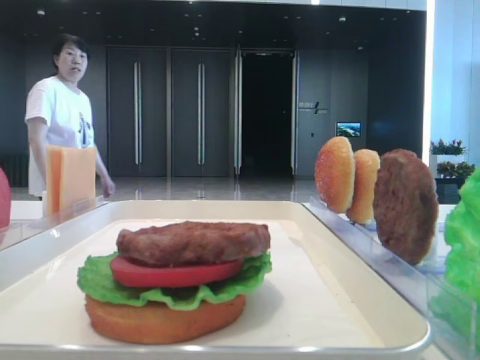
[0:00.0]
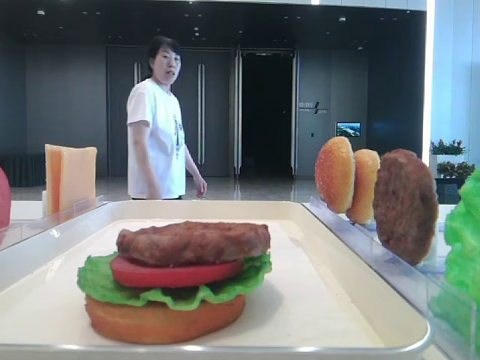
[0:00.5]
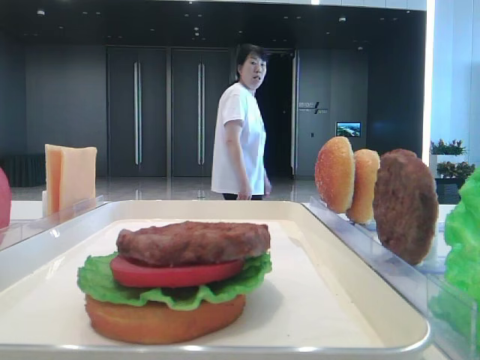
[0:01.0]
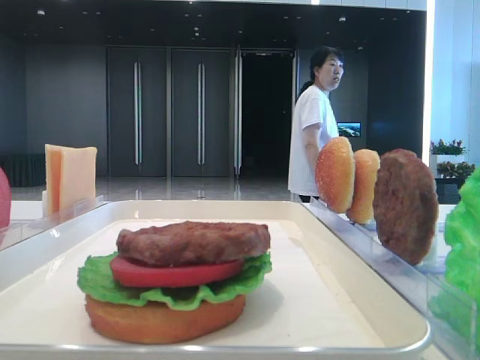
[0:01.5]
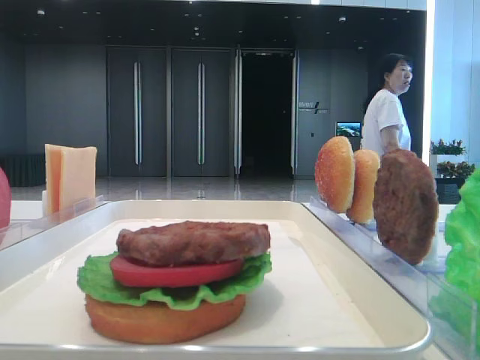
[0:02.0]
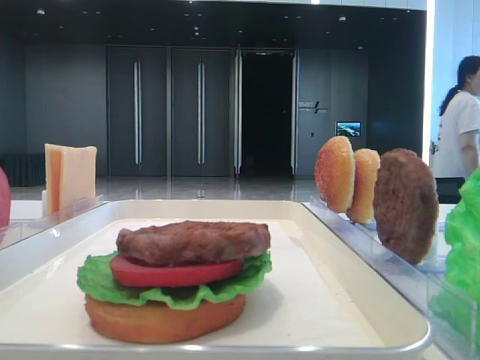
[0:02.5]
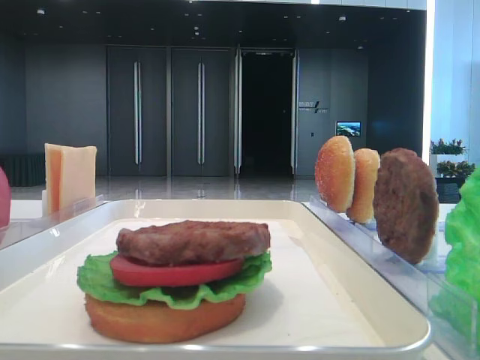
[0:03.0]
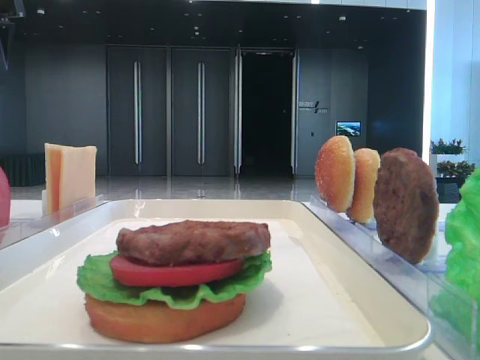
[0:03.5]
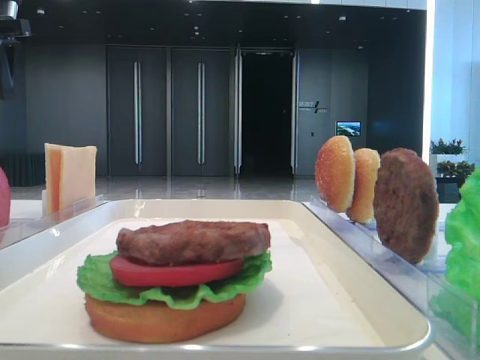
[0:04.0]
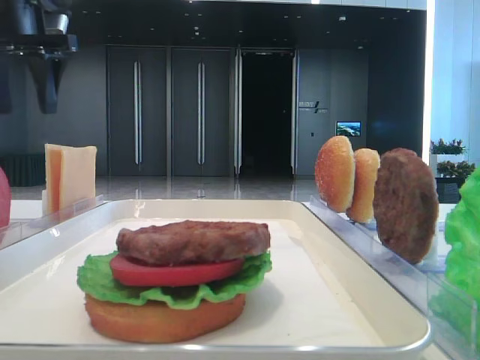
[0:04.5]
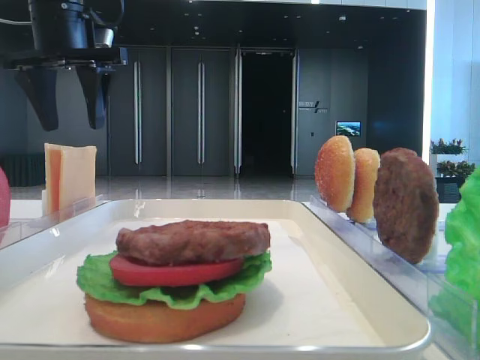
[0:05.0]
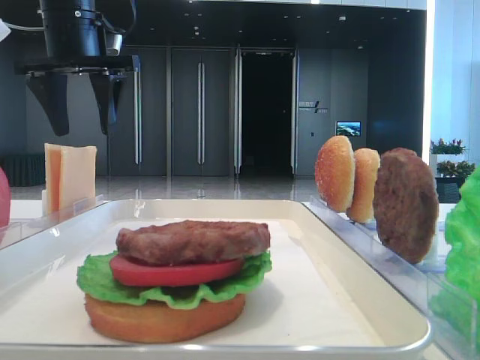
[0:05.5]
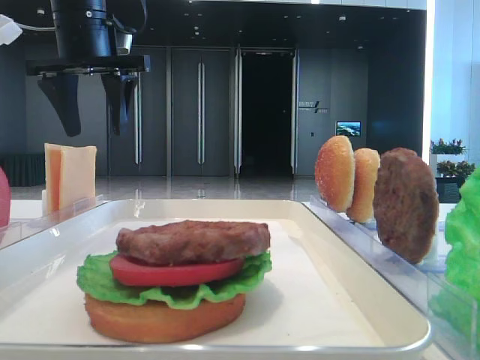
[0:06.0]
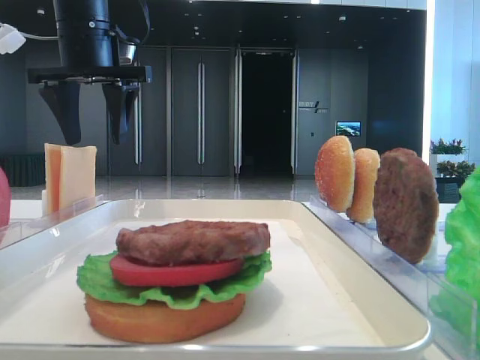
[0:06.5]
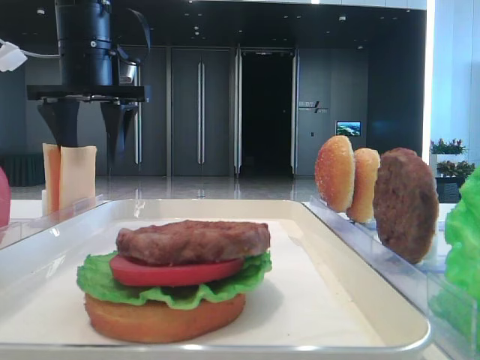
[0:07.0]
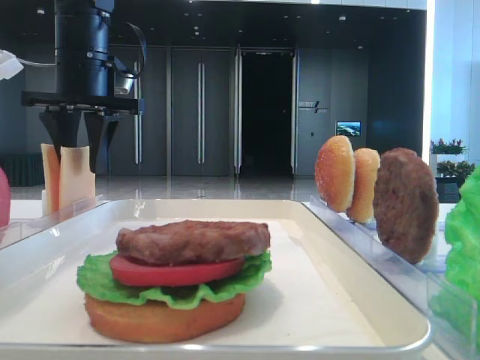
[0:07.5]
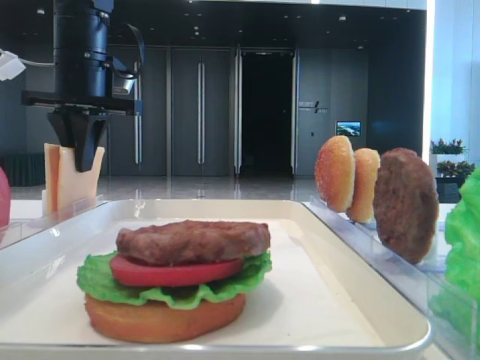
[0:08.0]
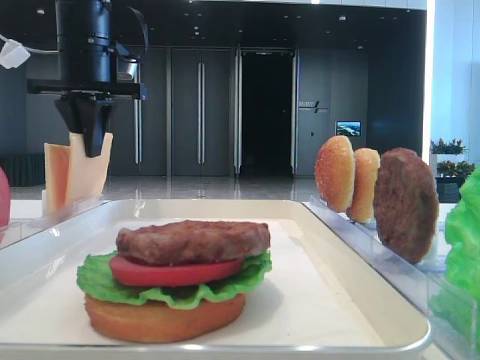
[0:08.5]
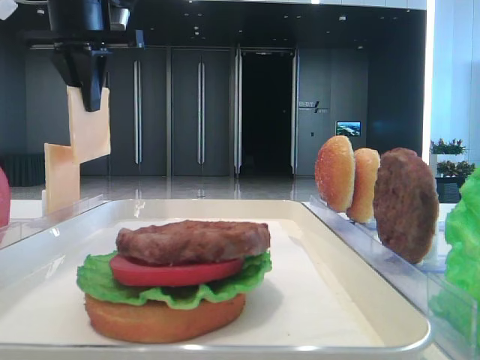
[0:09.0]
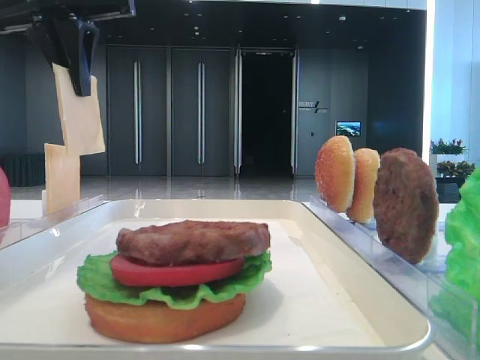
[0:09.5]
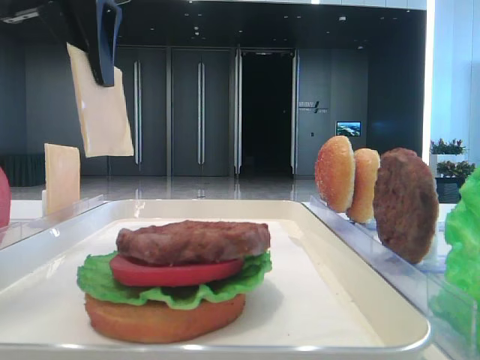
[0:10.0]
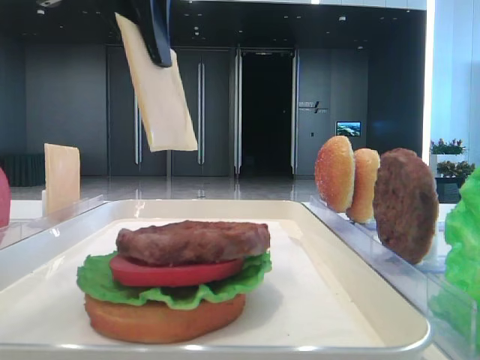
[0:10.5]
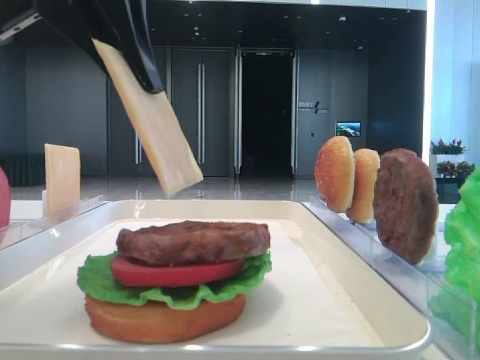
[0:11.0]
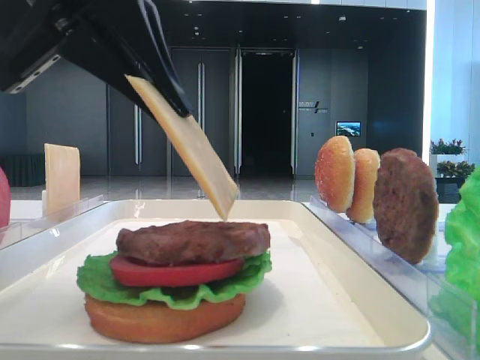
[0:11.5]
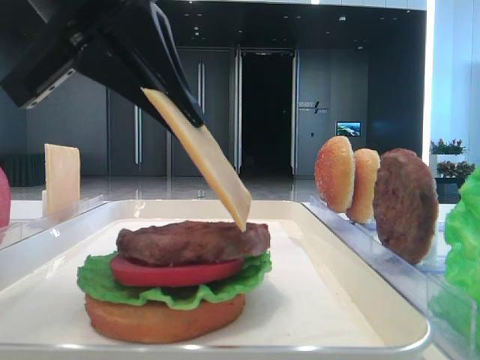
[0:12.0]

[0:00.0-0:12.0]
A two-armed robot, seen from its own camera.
Step, 0:00.0 to 0:08.0: Pick up the cheese slice with the left hand.
0:02.0 to 0:04.0: The left gripper is displaced forward by some 35 cm.
0:04.0 to 0:06.0: The left gripper heads to the right, covering roughly 15 cm.
0:06.0 to 0:08.0: The left gripper closes.
0:08.0 to 0:10.0: The left gripper moves backward and upward, roughly 15 cm.
0:10.0 to 0:12.0: The left gripper heads backward and downward, covering about 15 cm.

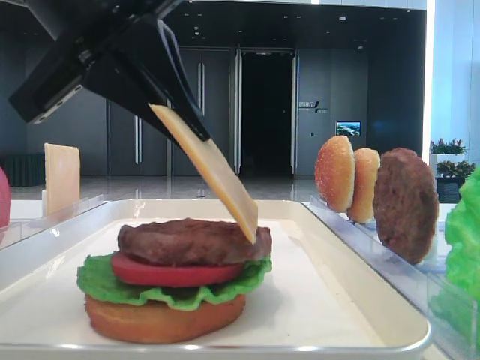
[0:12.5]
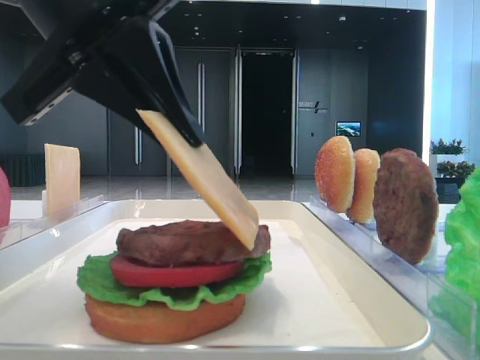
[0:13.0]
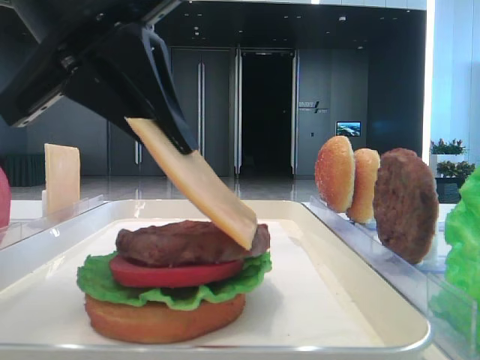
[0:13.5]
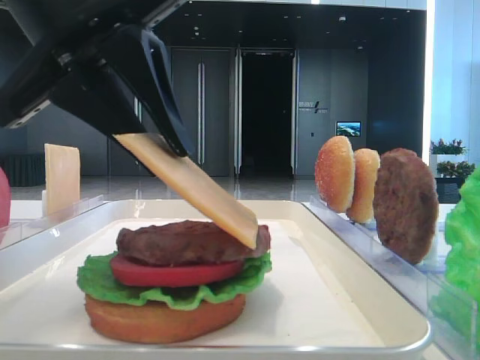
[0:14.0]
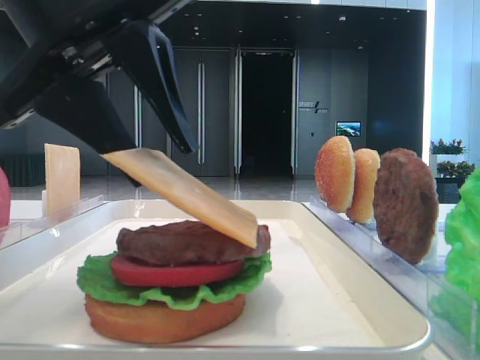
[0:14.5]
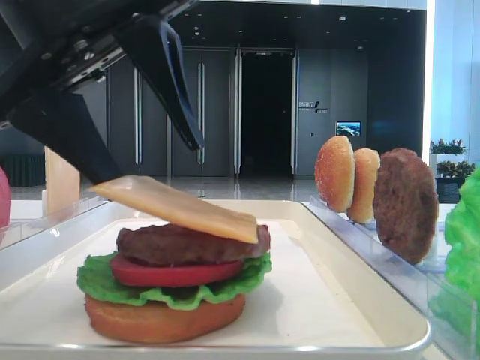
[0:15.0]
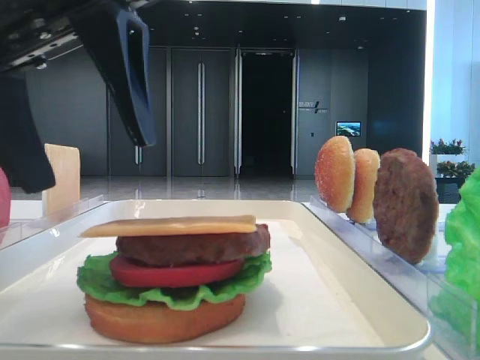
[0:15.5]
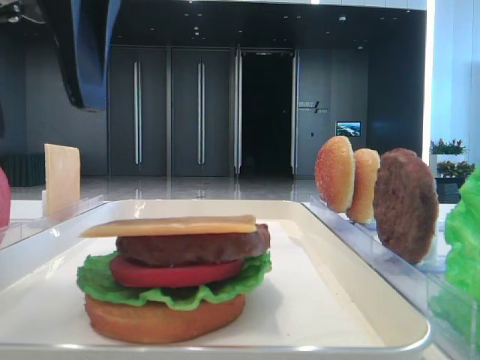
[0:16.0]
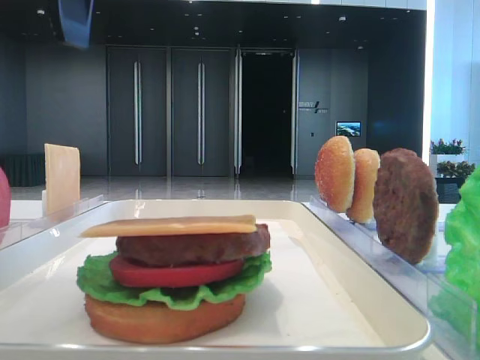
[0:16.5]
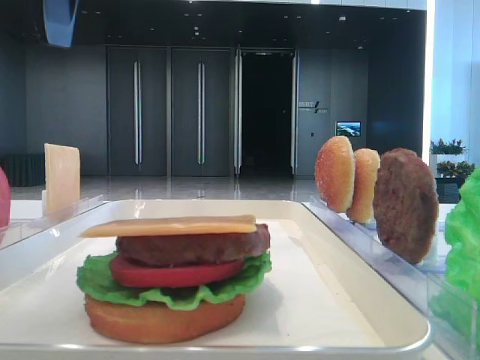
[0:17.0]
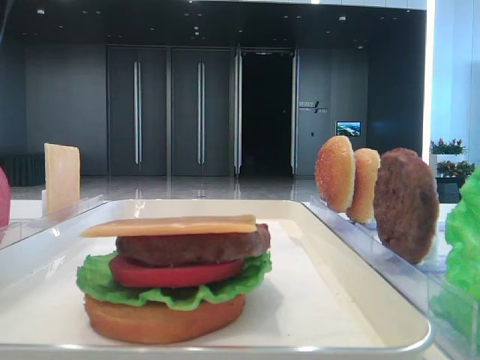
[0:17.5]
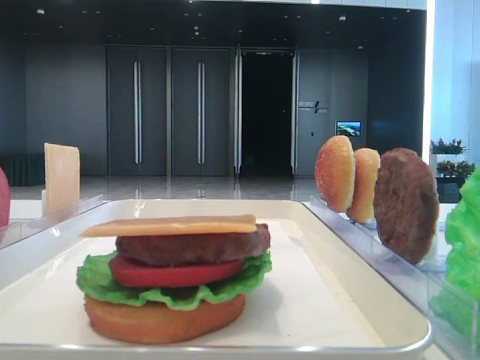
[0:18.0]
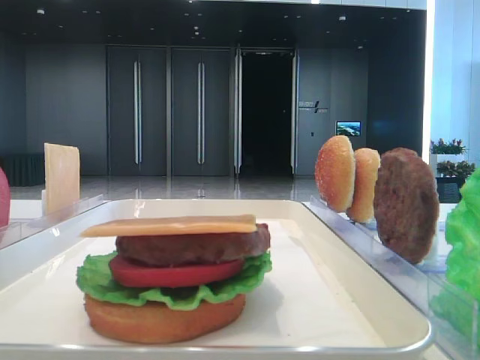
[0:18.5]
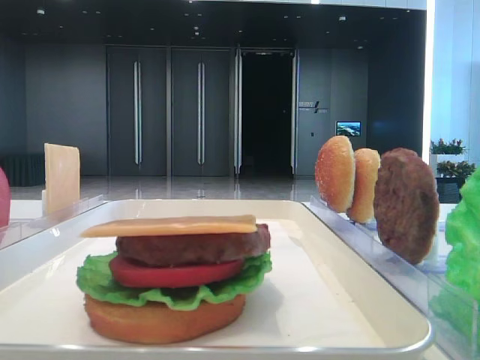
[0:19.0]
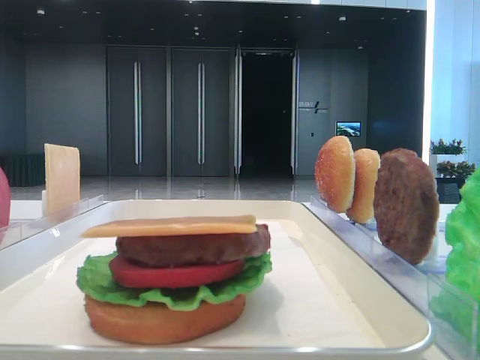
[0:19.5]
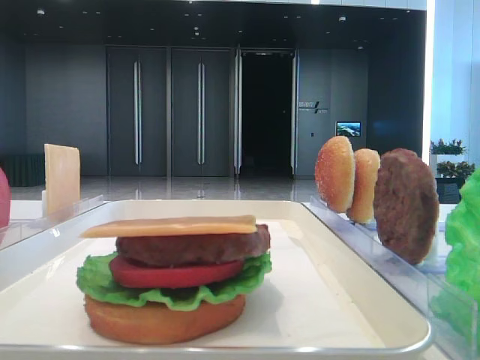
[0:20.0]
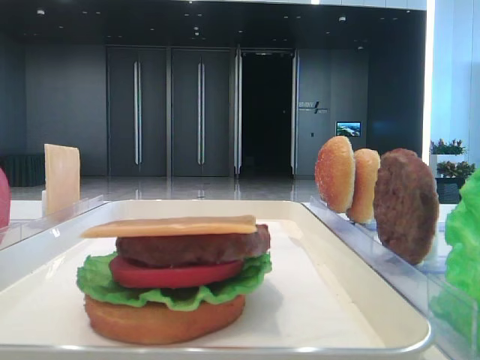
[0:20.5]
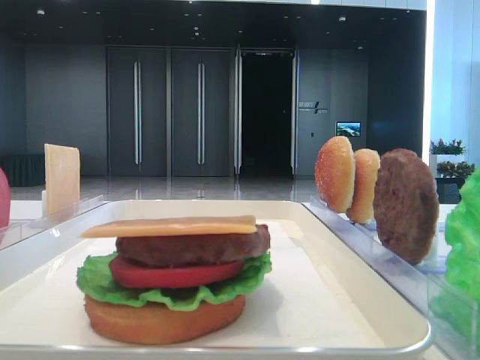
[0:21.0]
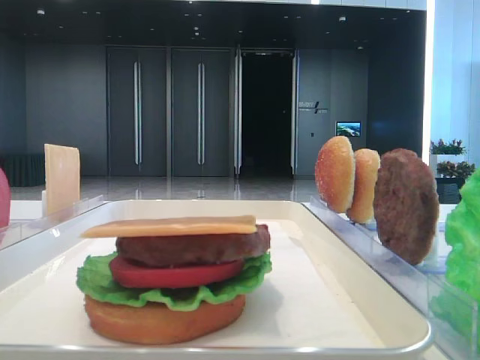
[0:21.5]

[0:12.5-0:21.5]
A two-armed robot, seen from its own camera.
Step, 0:12.5 to 0:15.0: Place the cheese slice on the patty with the left hand.
0:12.5 to 0:14.5: The left gripper opens.
0:14.5 to 0:17.0: The left gripper moves upward, about 10 cm, and opens up.
0:17.0 to 0:19.5: The left gripper moves to the left and backward, about 20 cm.

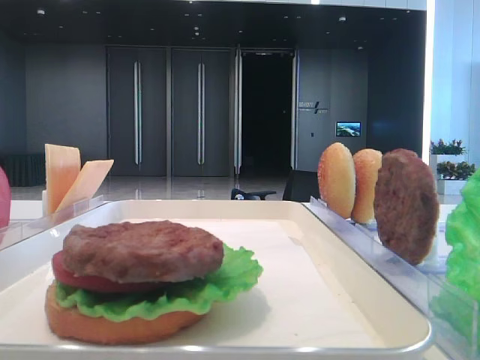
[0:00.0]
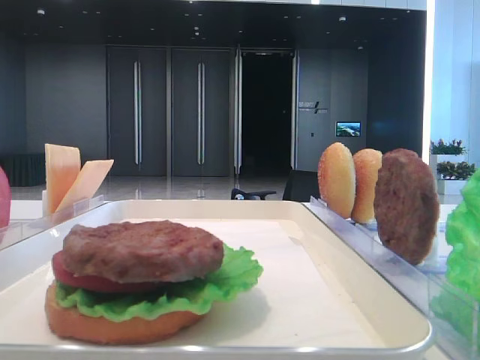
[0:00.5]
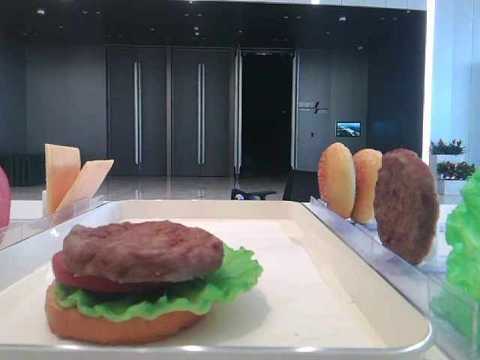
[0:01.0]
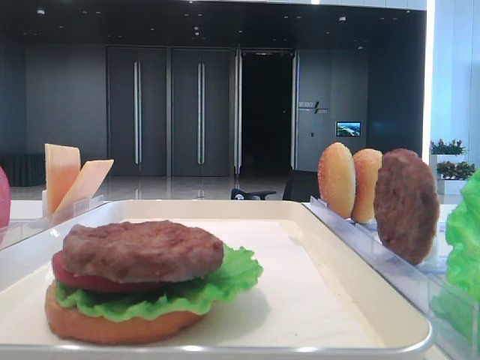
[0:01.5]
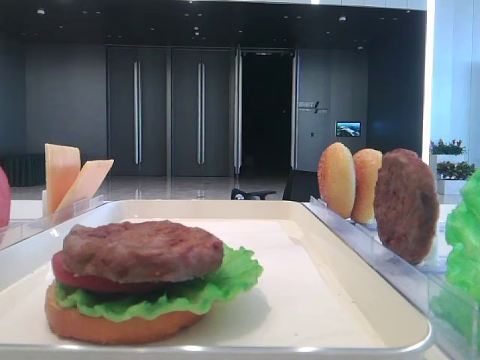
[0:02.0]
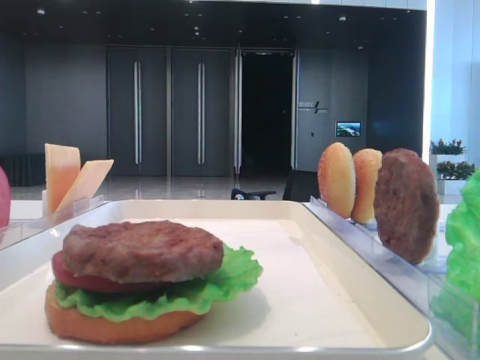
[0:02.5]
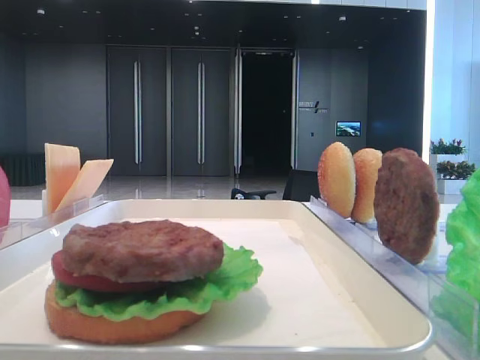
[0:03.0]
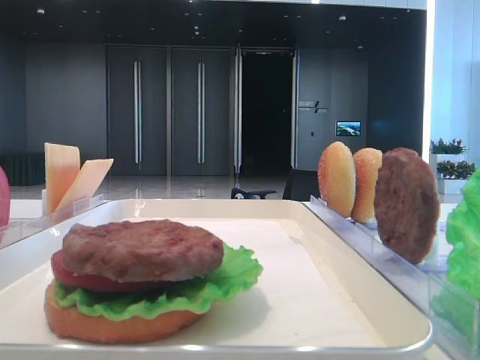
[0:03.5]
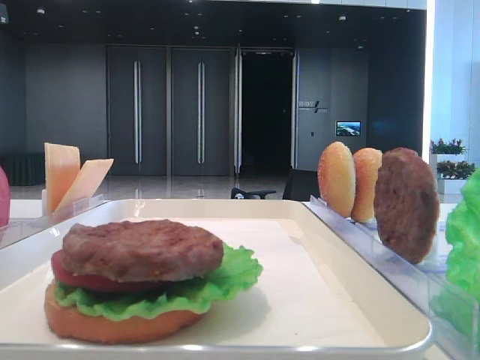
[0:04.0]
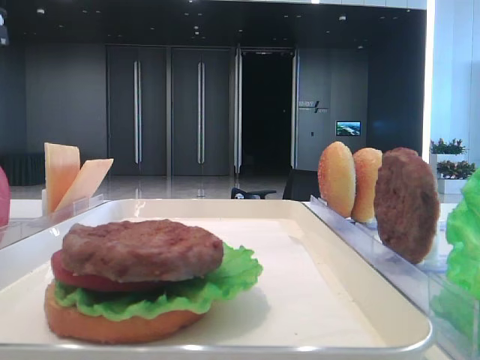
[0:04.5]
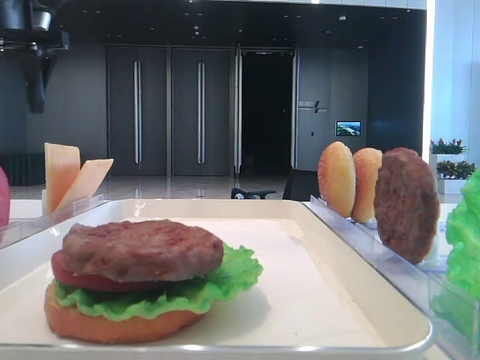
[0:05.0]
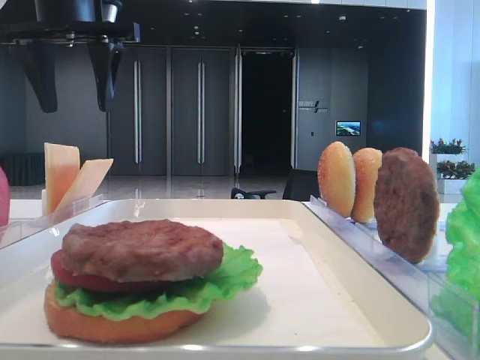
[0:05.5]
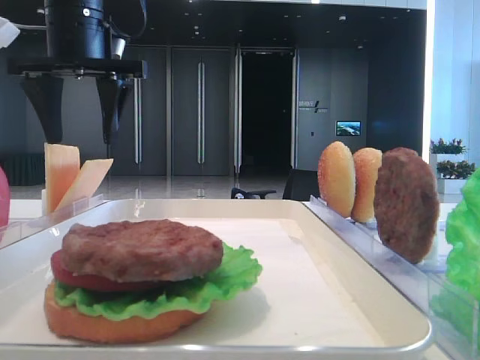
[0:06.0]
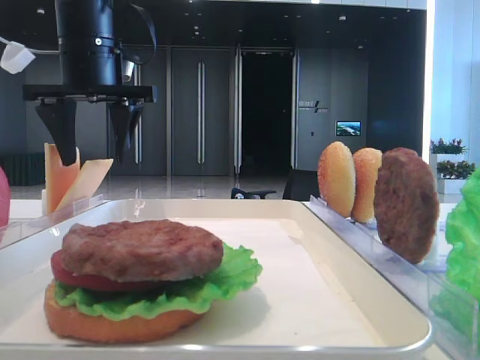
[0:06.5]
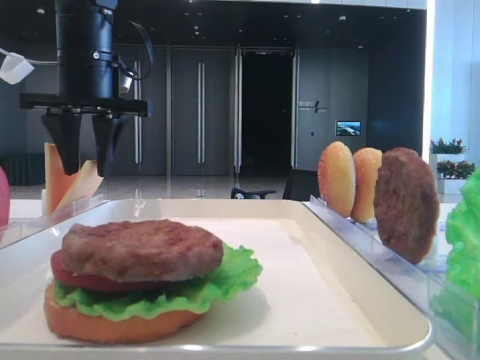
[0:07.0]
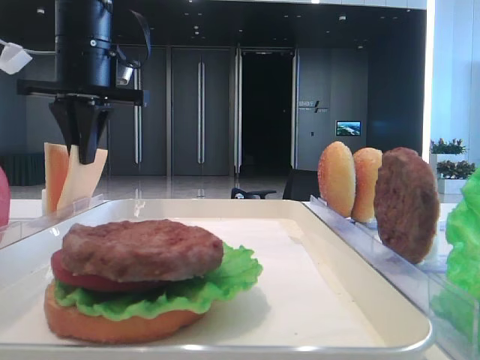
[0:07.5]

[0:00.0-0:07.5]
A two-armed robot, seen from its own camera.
Step, 0:00.0 to 0:07.0: Pick up the cheese slice with the left hand.
0:02.0 to 0:04.0: The left gripper shifts approximately 35 cm forward.
0:04.0 to 0:05.5: The left gripper heads to the right, covering about 15 cm.
0:05.5 to 0:07.5: The left gripper is displaced downward by some 5 cm, and closes.
